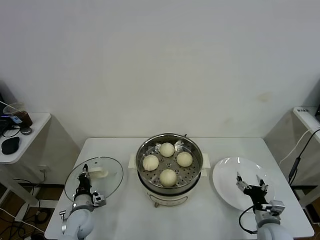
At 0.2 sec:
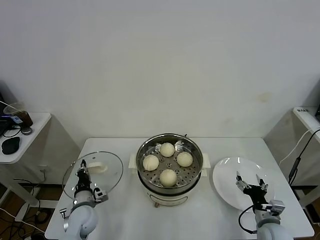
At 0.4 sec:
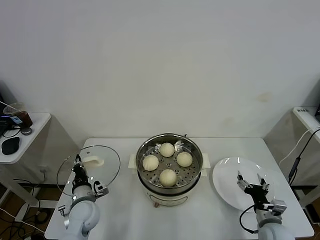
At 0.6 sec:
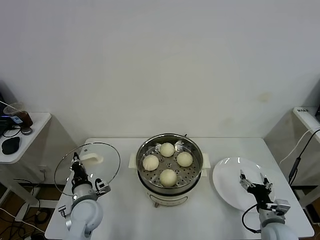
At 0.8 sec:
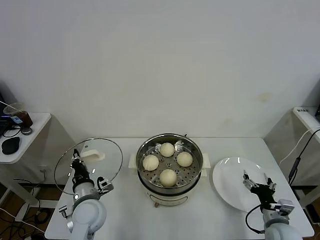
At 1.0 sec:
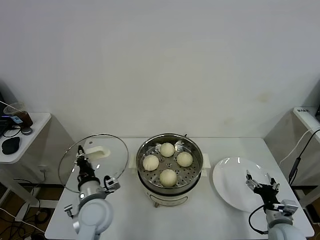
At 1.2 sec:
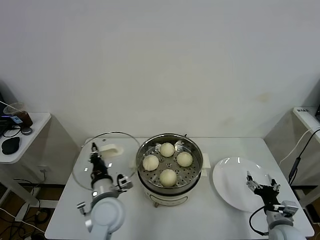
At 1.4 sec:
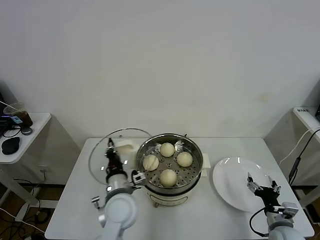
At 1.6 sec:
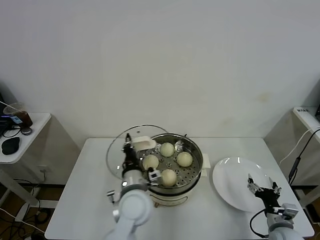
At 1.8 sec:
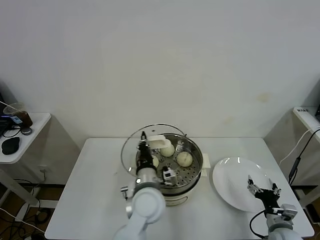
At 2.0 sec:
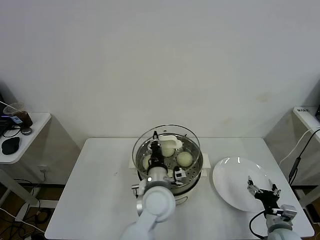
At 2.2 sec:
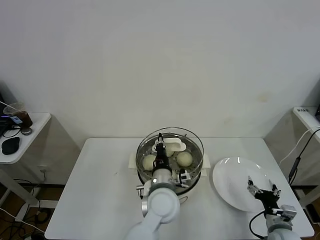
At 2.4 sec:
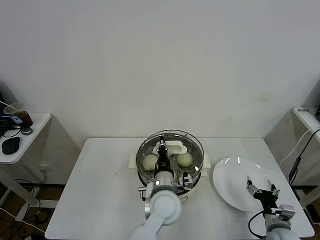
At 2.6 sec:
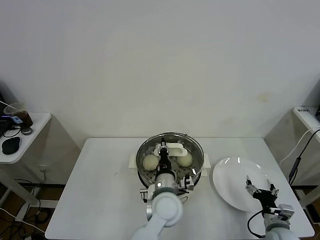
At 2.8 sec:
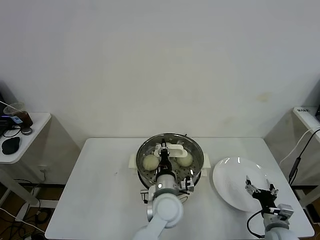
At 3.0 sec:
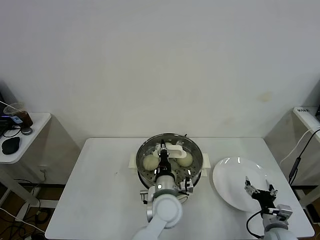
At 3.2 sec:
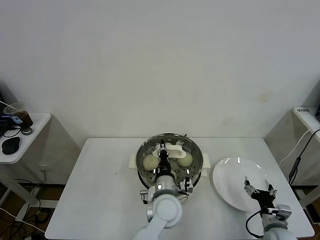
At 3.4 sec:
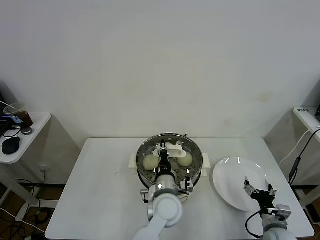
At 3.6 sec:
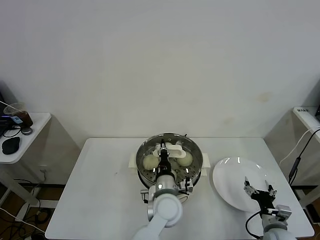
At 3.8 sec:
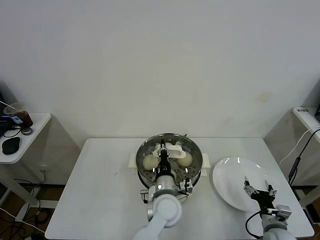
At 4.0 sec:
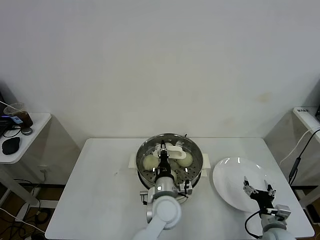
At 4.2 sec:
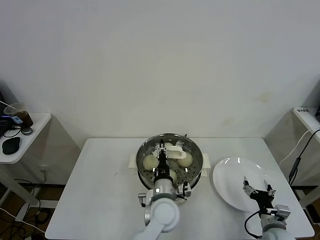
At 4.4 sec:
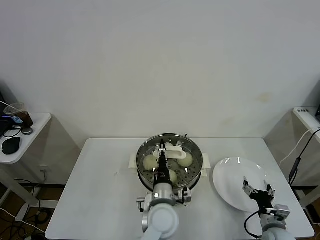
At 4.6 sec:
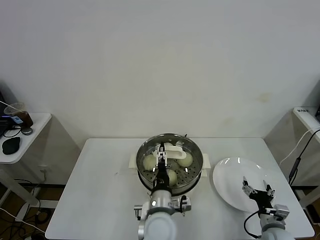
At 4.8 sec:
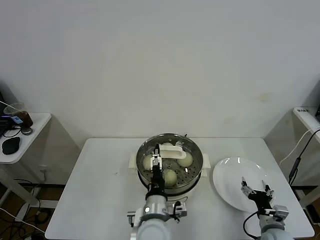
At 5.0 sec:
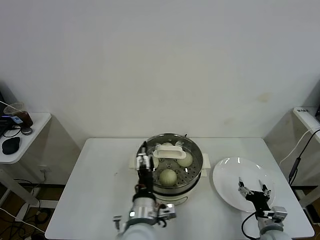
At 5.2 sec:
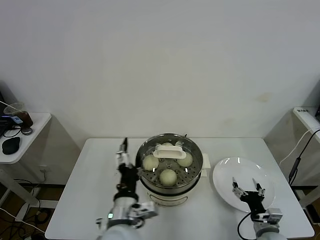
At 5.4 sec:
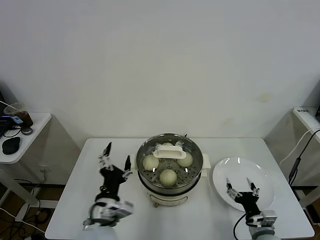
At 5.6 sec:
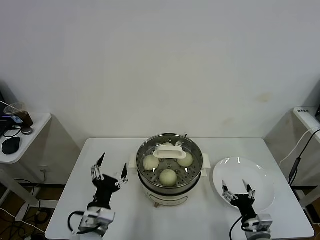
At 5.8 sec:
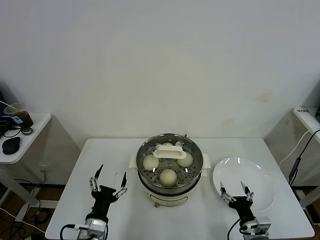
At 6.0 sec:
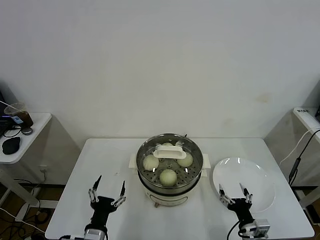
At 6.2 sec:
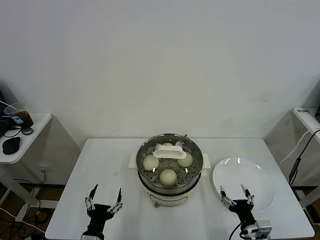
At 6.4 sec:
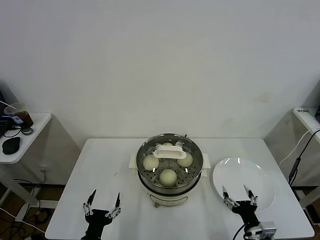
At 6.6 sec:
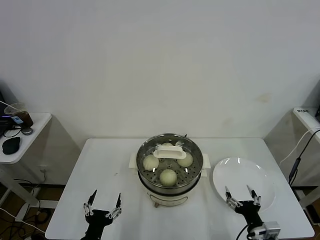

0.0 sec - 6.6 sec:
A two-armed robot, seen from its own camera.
Task of the whole recording: take steamed baozi put them in steamer.
Step, 0.0 sec - 4.4 sec: Place the pot lid on the steamer with left gripper.
0.0 sec - 1.6 sec: The left gripper is displaced to the right and upward by some 30 cm.
1.6 sec - 3.2 sec: The left gripper shifts roughly 10 cm to the right.
3.2 sec - 5.0 sec: The left gripper heads backward and to the left, covering approximately 10 cm, and opens.
5.0 sec - 6.6 sec: The right gripper travels backward and to the left by some 10 cm. The left gripper moves to the left, downward and backward, roughly 20 cm.
